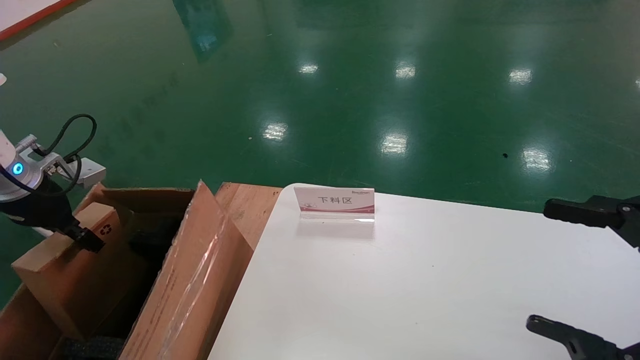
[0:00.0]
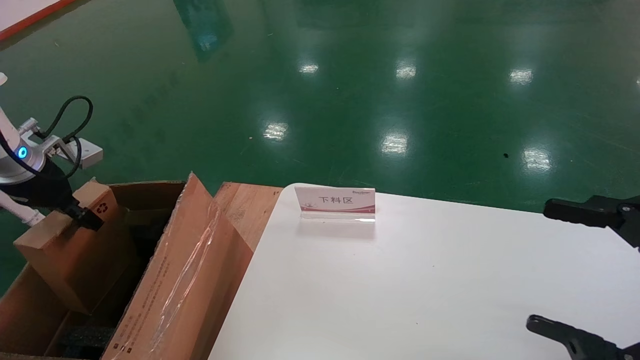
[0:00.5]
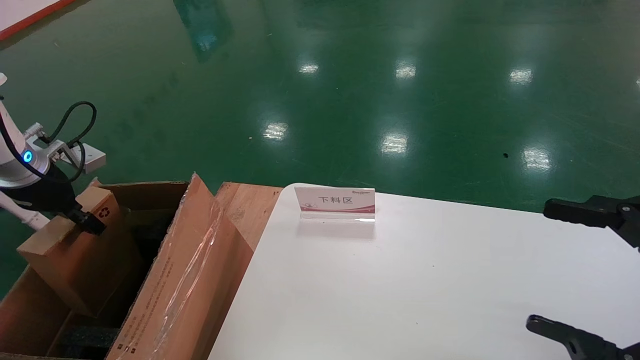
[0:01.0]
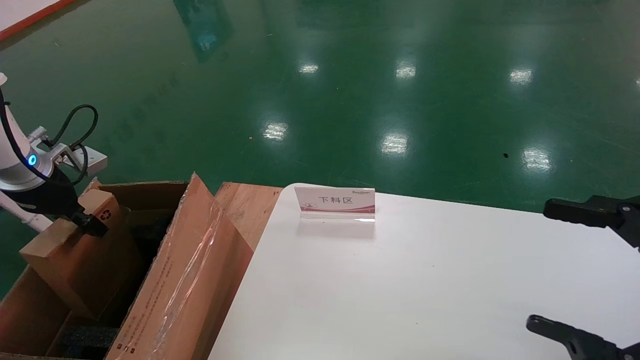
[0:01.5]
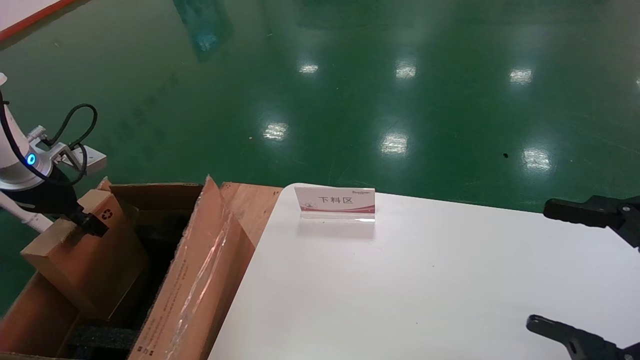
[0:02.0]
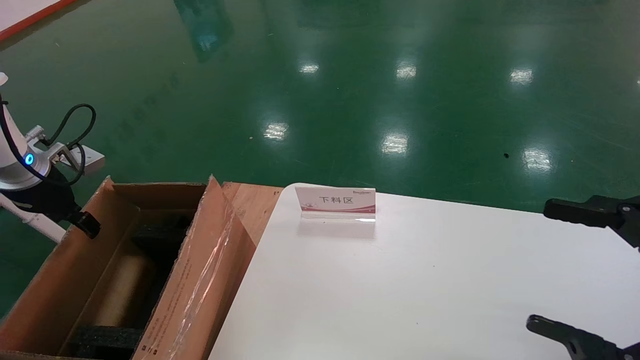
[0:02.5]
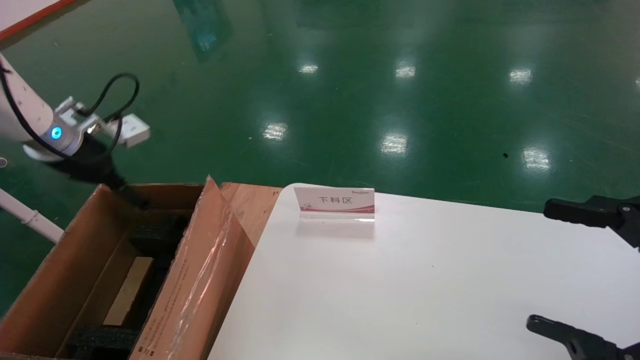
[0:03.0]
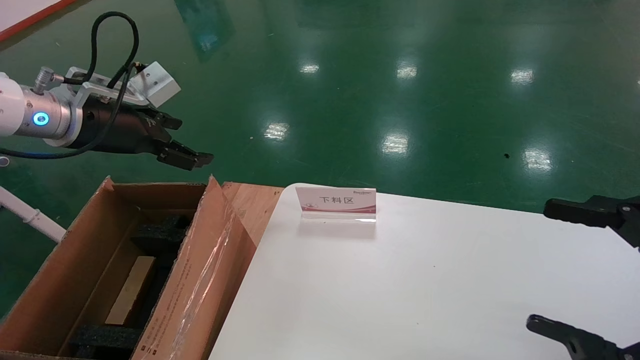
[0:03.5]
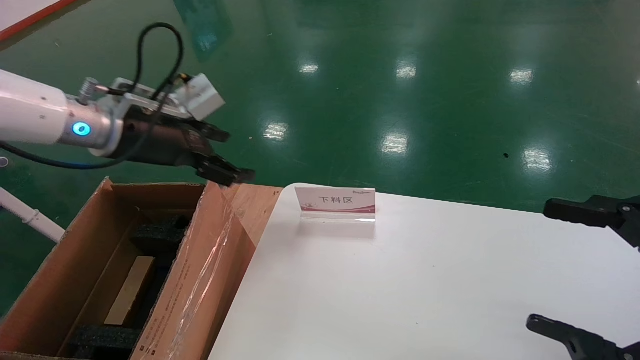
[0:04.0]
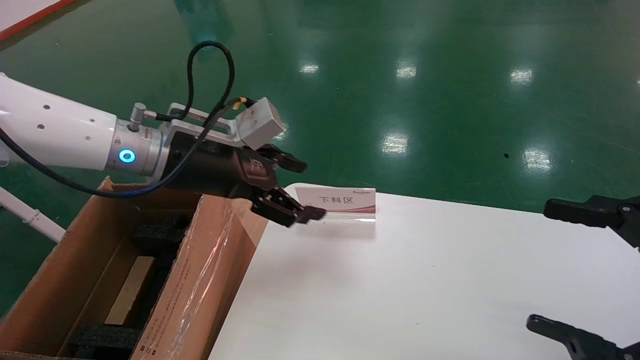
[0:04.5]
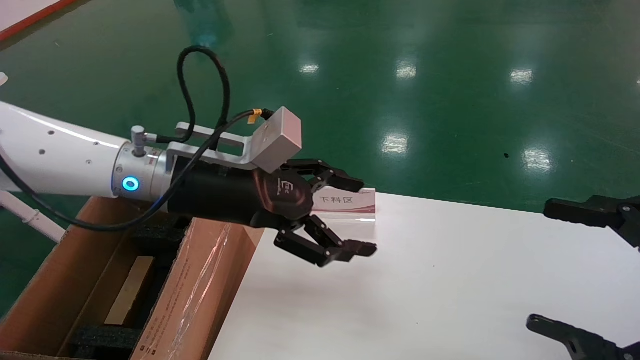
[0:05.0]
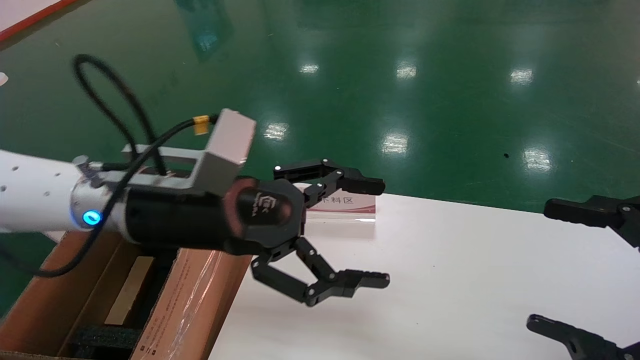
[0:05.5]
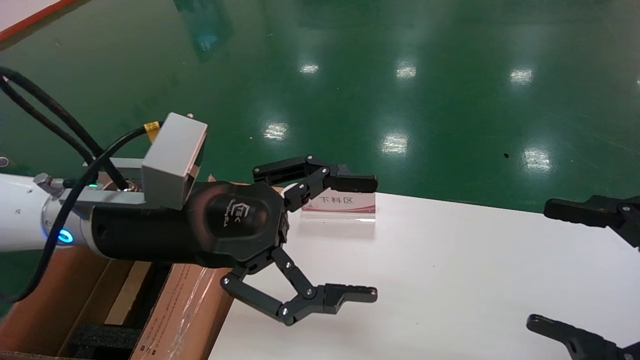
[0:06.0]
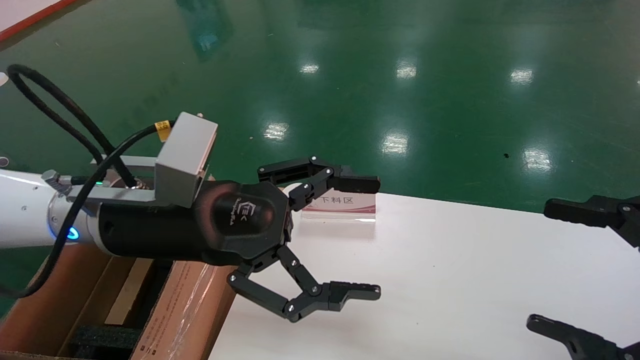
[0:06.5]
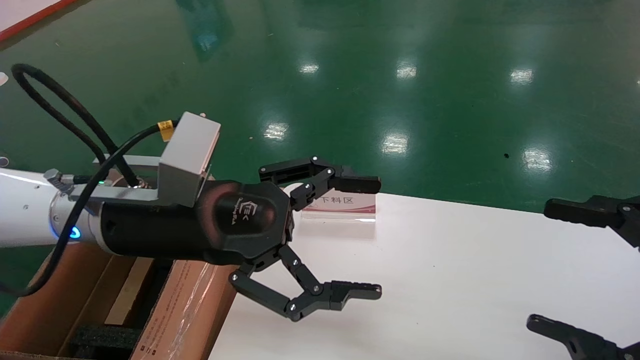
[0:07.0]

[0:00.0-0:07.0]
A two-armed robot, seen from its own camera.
Task of the whole recording: pick up the small cardboard box and load it into the large cardboard box.
Step, 0:00.0 to 0:03.0: Place the mouse and power cord box into the case.
0:00.0 to 0:02.0: The grippers make only small movements.
0:02.0 to 0:03.5: The left gripper moves to the right and upward, approximately 15 cm, and opens up.
0:03.5 to 0:05.0: The left gripper heads to the right, covering about 20 cm.
0:05.0 to 0:07.0: The left gripper moves backward, some 5 cm.
